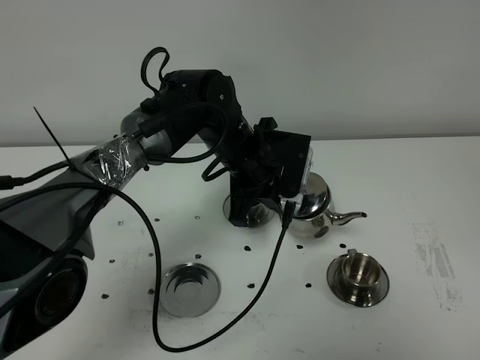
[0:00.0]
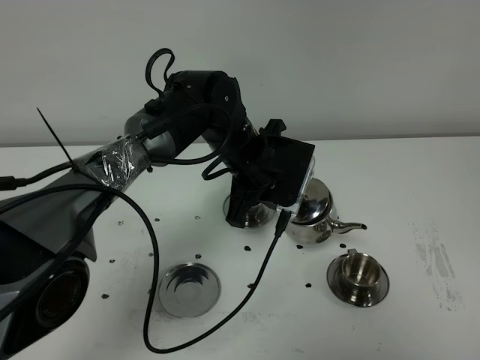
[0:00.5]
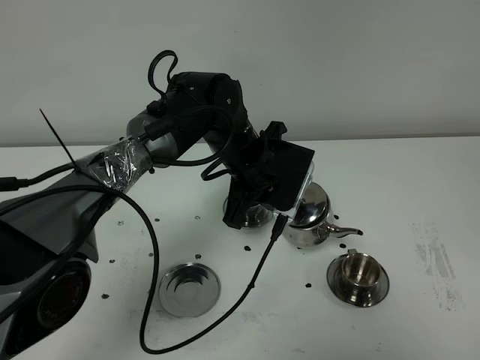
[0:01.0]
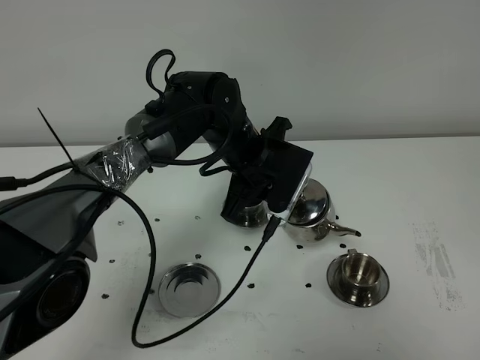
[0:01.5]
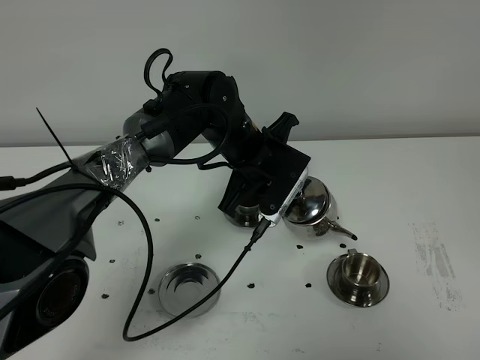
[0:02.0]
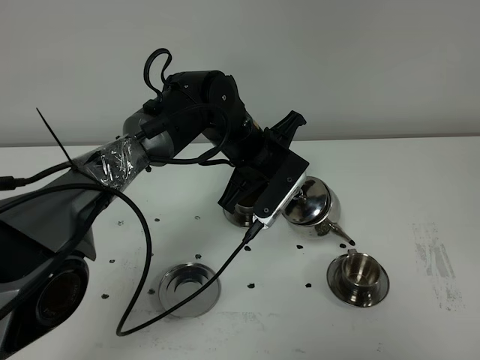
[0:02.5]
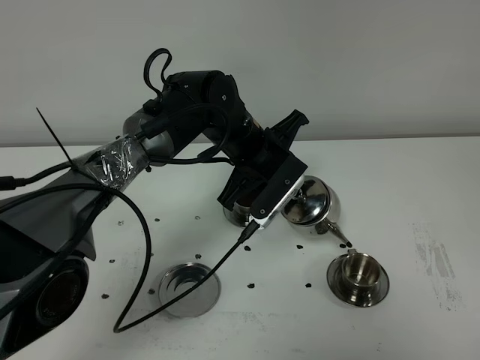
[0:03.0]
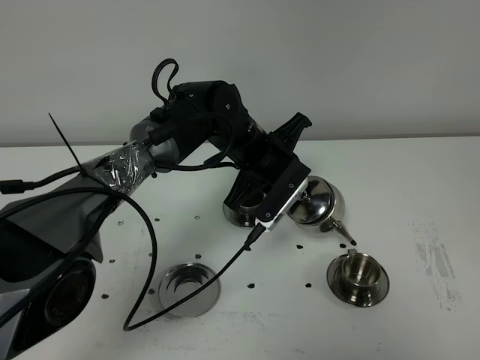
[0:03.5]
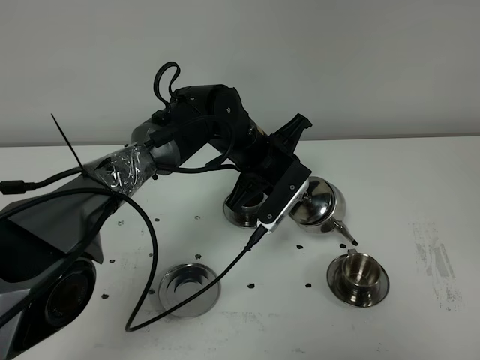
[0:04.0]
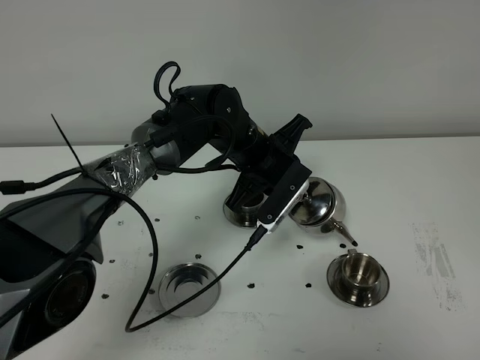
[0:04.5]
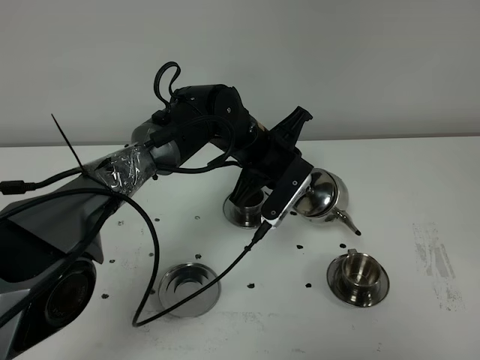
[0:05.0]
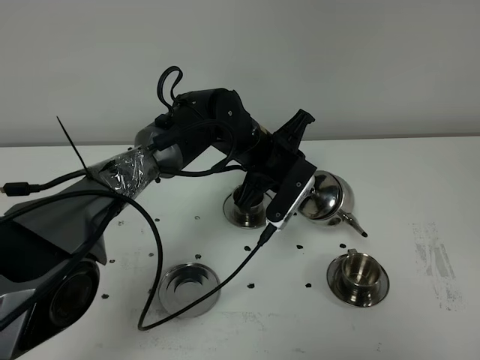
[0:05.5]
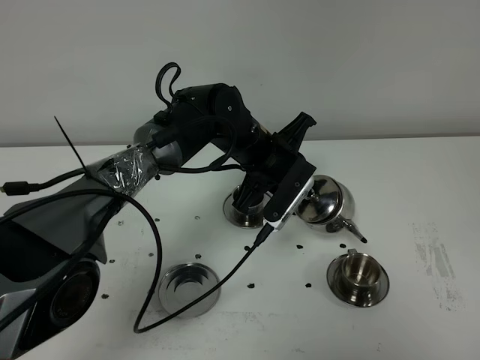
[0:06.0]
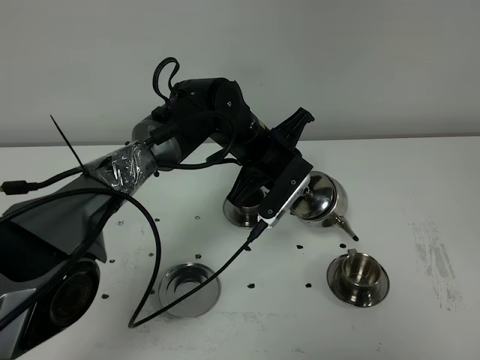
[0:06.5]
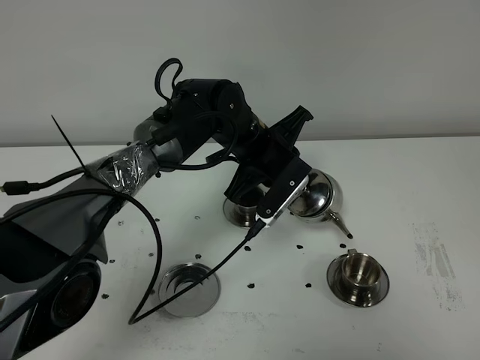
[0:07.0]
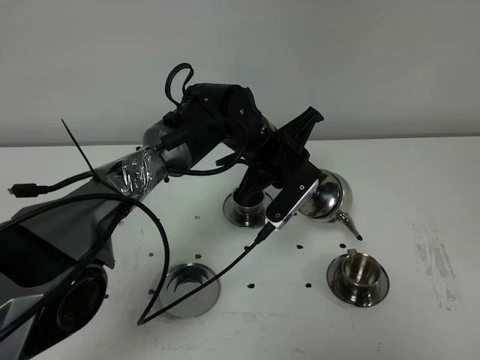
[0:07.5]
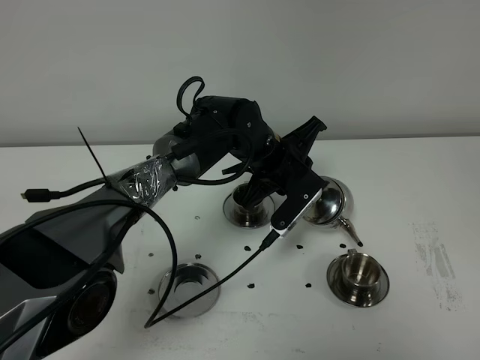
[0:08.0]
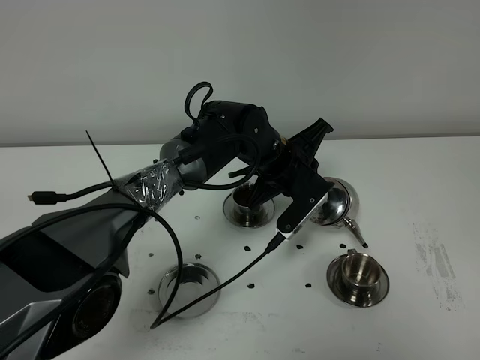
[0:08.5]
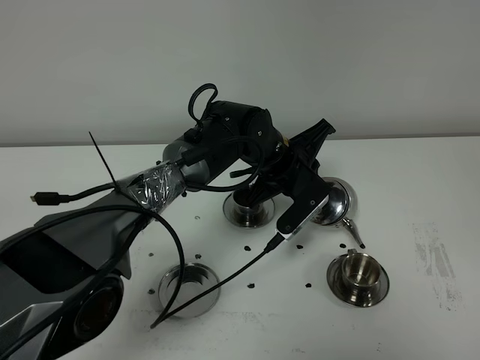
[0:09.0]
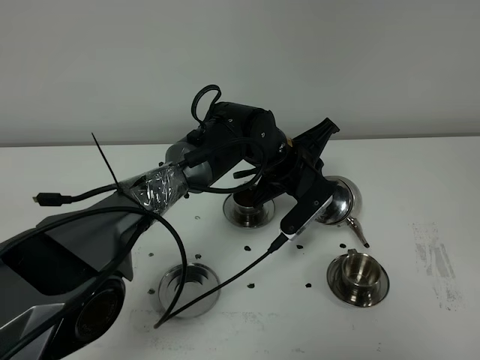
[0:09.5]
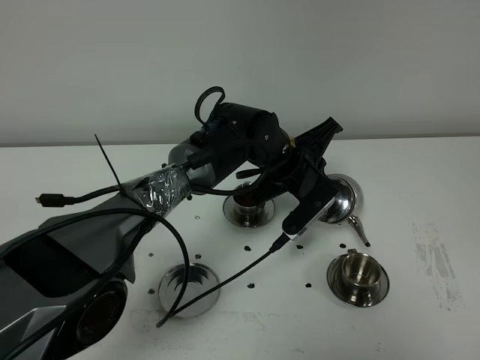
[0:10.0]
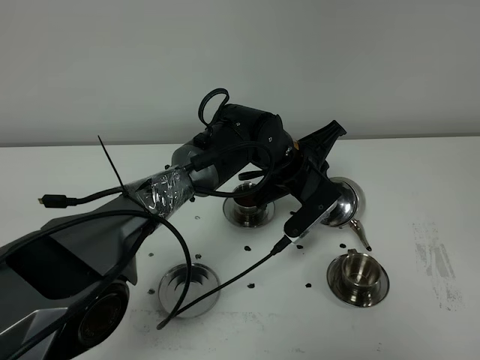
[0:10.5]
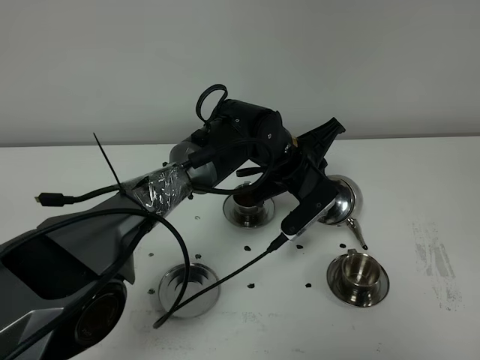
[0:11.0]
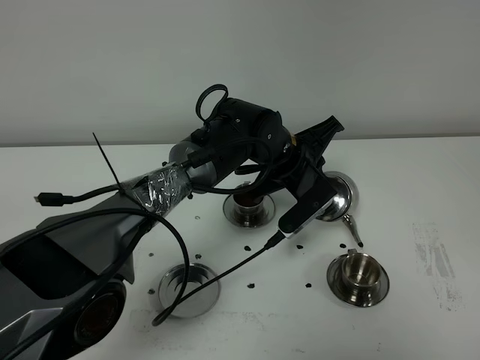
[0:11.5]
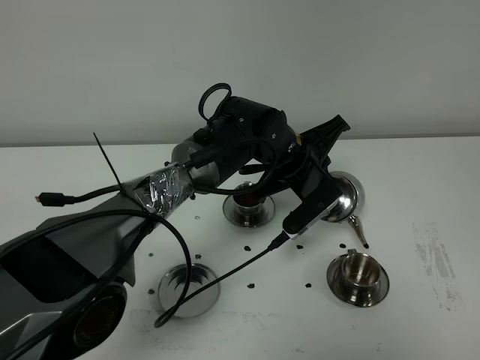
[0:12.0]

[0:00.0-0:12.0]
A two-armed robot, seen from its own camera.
Task of the whole recording: grasp the stainless steel teapot and pour the tea into the two stainless steel teacups one by one, put the stainless steel teapot back in its original place.
0:02.0 to 0:08.0: The grippers make only small movements.
0:08.0 to 0:12.0: The grippers stay close to where they were, moving slightly.

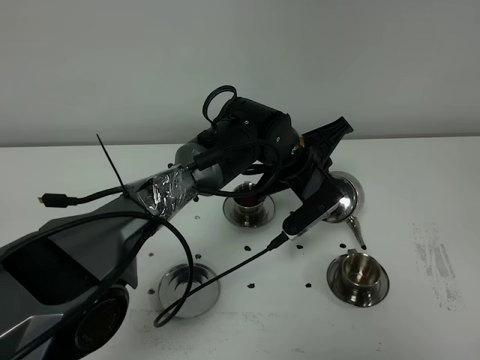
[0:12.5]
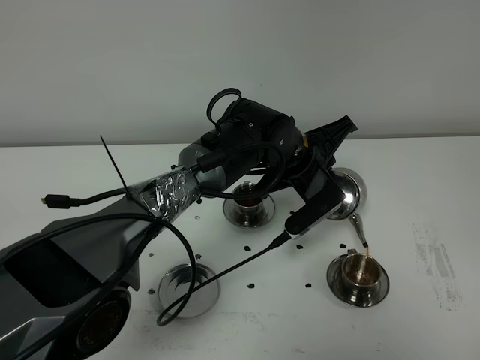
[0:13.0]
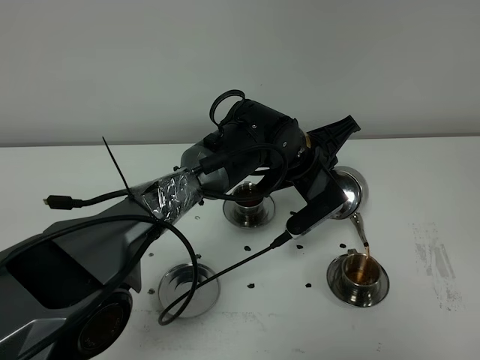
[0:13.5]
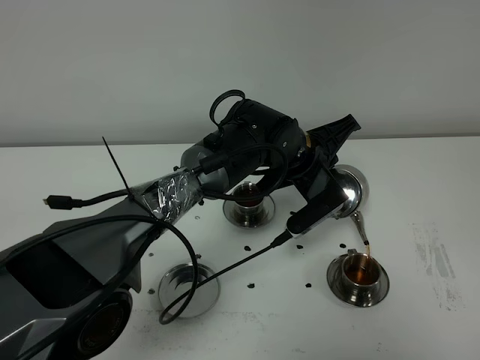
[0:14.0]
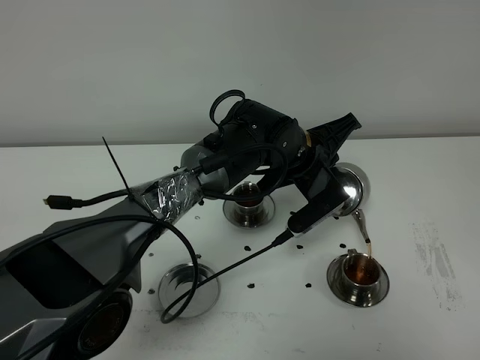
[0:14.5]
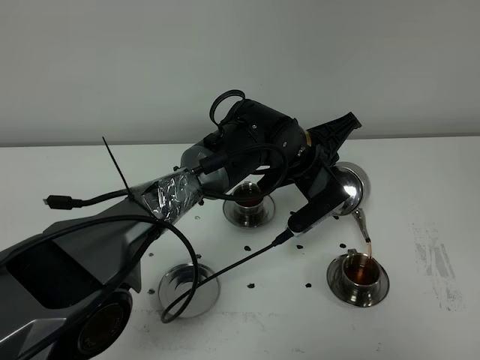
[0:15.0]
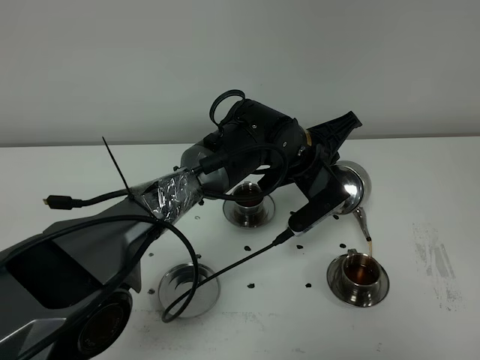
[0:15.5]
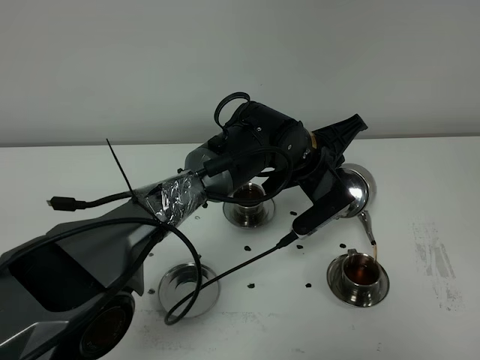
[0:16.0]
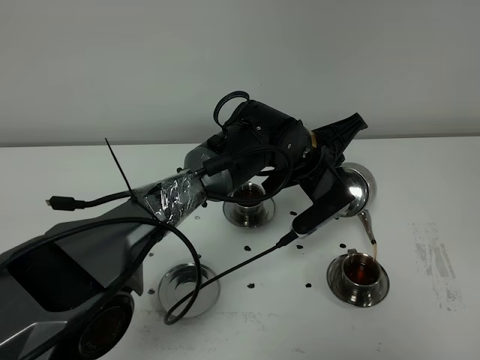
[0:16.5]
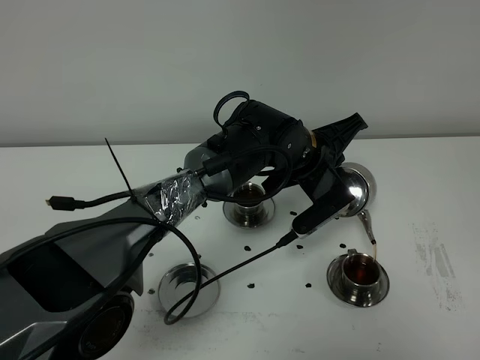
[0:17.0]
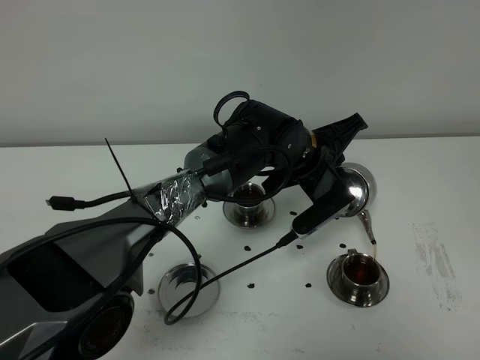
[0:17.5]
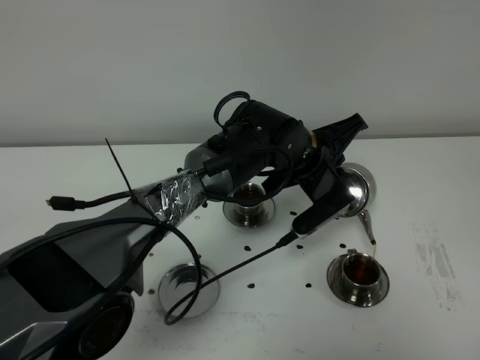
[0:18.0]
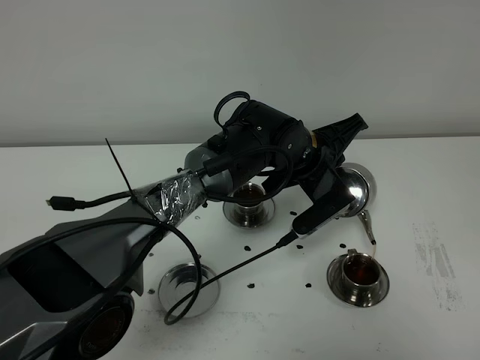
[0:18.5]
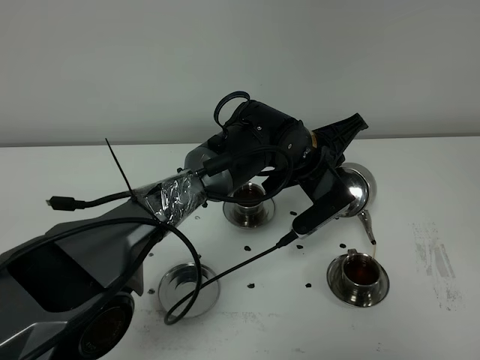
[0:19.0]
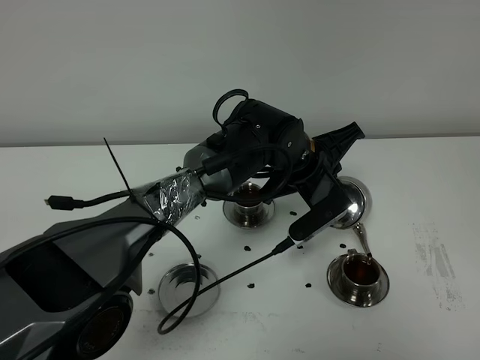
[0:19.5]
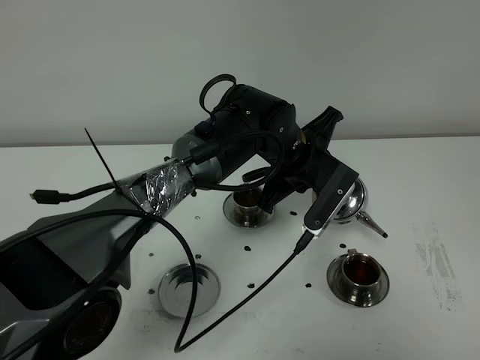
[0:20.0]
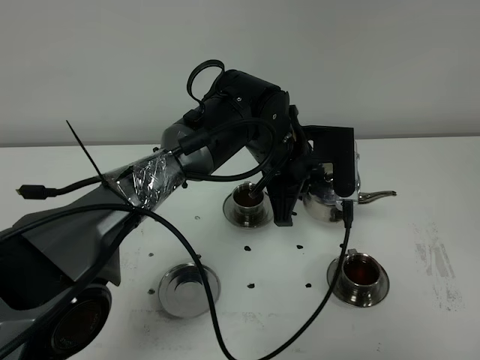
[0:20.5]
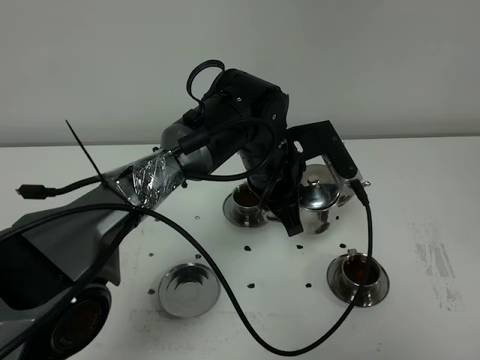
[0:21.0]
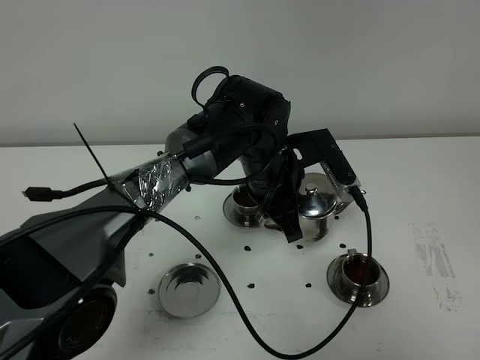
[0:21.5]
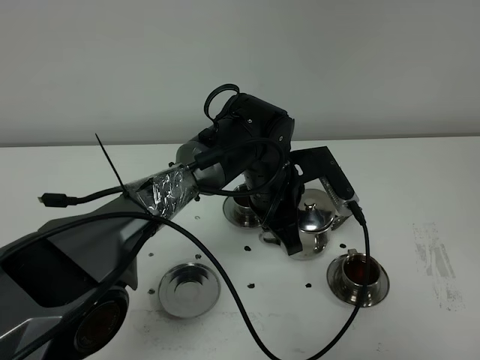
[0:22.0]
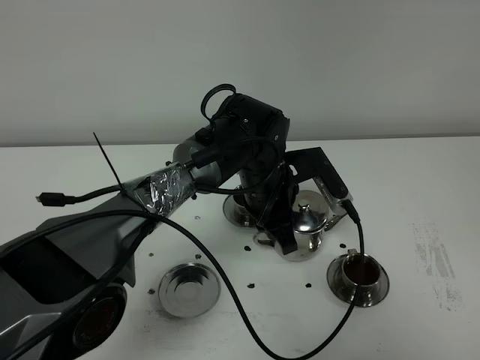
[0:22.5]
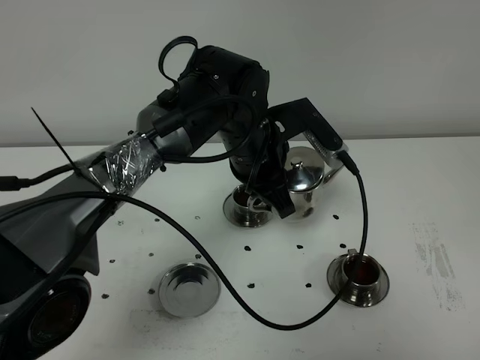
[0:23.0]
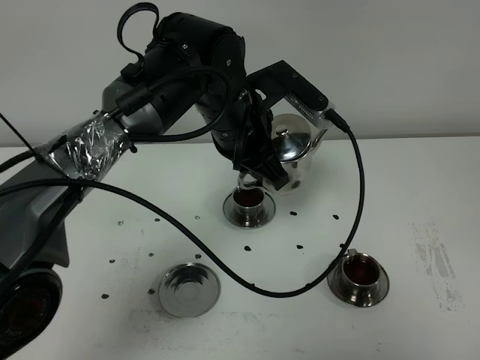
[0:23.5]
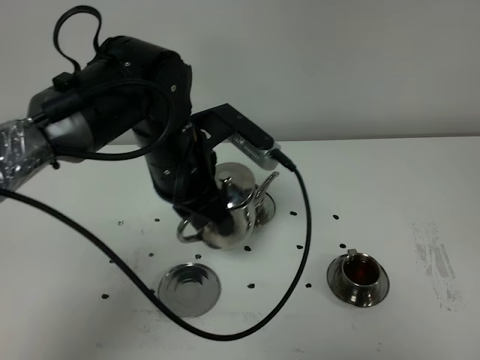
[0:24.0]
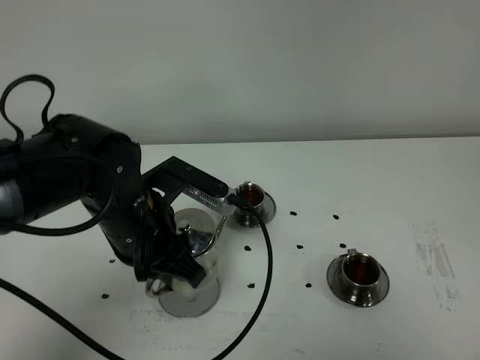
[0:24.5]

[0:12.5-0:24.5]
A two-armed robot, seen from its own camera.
Task of the whole recording: grasp the stainless steel teapot and pour the tea into the two stainless steel teacups one by one, put the stainless steel teapot back in its original place.
Step, 0:12.5 to 0:19.5: Pour tea into the teacup with the left gripper.
0:12.5 to 0:14.5: Both grippers stay put.
0:14.5 to 0:18.5: Neither gripper changes place.
0:20.5 to 0:22.5: The left gripper moves approximately 5 cm.
0:22.5 to 0:24.5: The left gripper travels to the left and backward by roughly 20 cm.

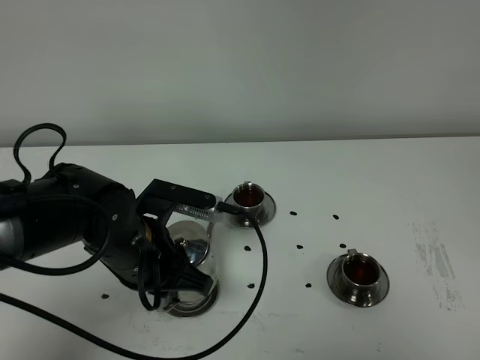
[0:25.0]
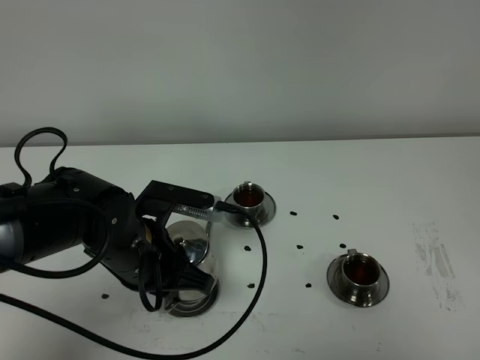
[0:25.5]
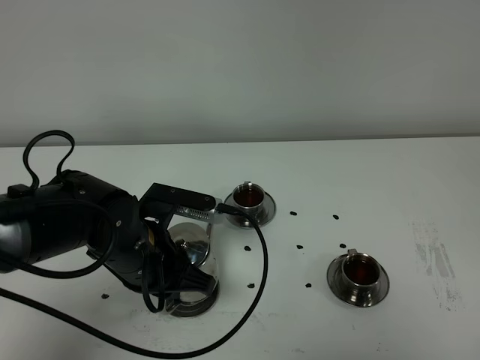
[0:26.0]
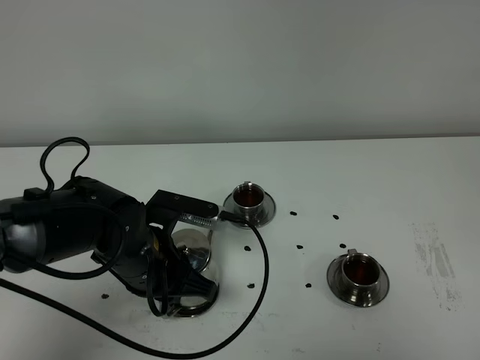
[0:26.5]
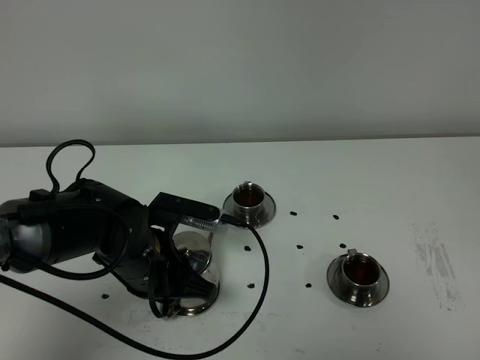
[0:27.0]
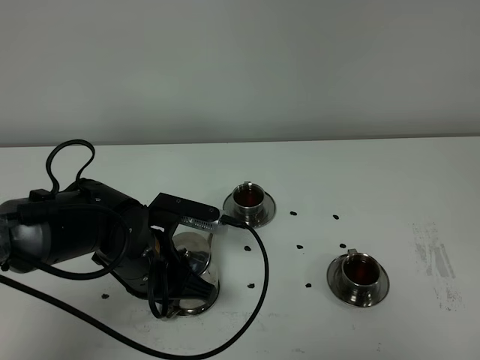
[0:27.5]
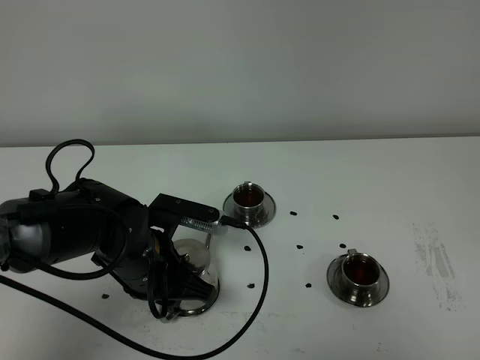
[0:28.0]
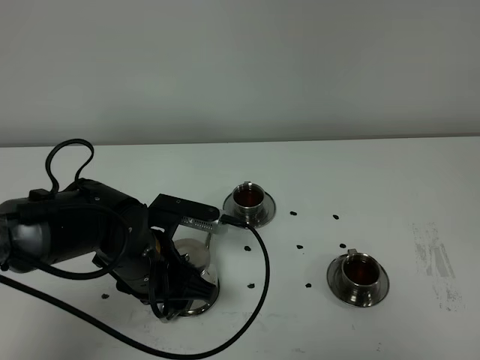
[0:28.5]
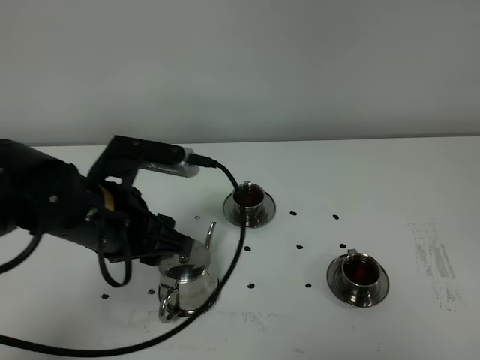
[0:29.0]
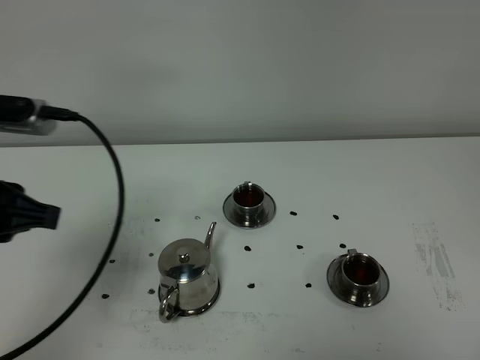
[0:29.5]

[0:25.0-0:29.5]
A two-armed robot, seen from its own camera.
Task of the whole recording: grasp the stainless steel teapot and pour the tea into the two stainless steel teacups one by one, put the stainless steel teapot back in its original place.
0:25.0 to 0:27.0: The grippers move only a little.
0:27.0 to 0:29.5: The left gripper heads upward and to the left, covering approximately 25 cm, and opens, then closes once more.
